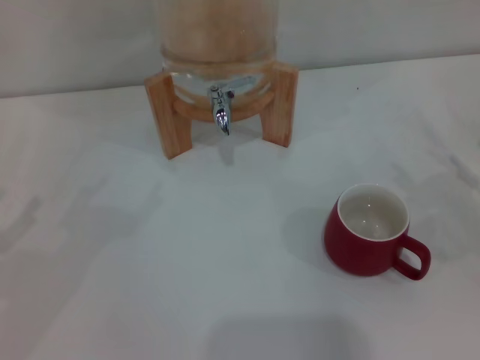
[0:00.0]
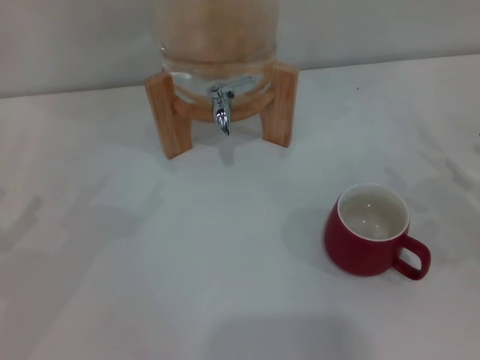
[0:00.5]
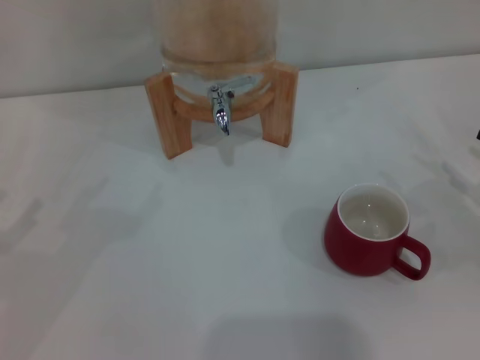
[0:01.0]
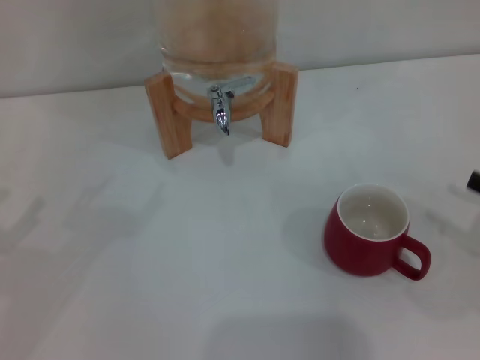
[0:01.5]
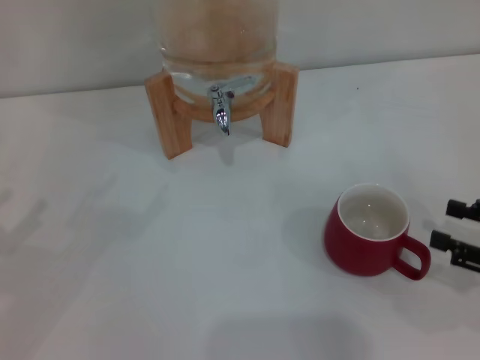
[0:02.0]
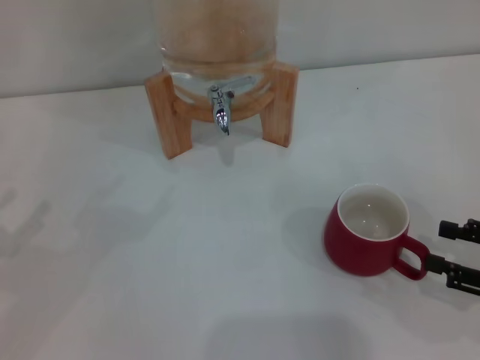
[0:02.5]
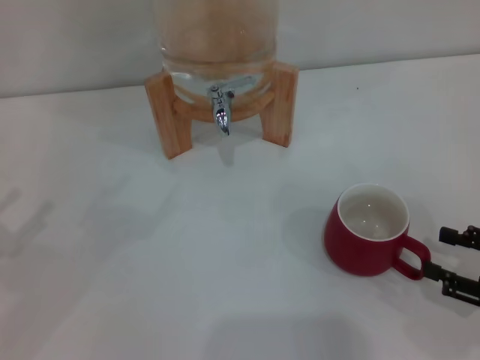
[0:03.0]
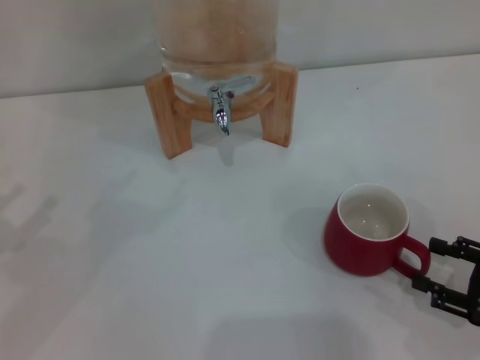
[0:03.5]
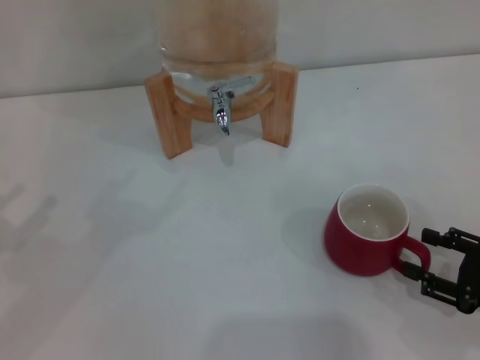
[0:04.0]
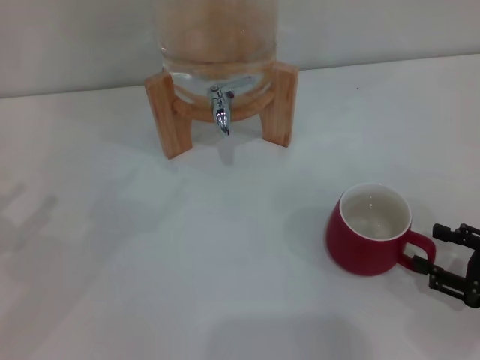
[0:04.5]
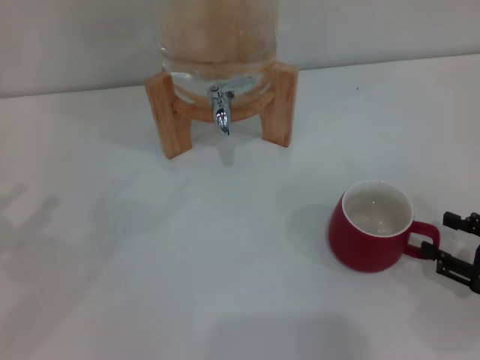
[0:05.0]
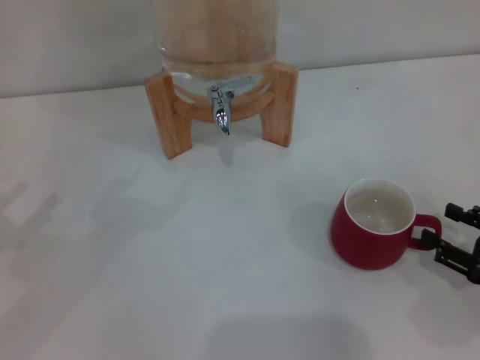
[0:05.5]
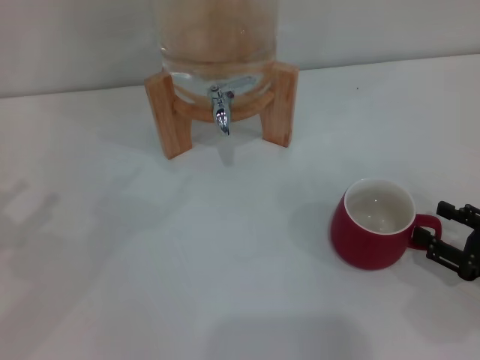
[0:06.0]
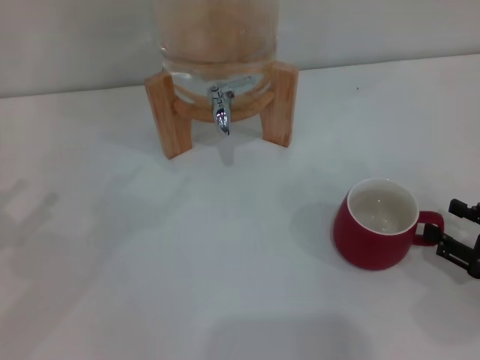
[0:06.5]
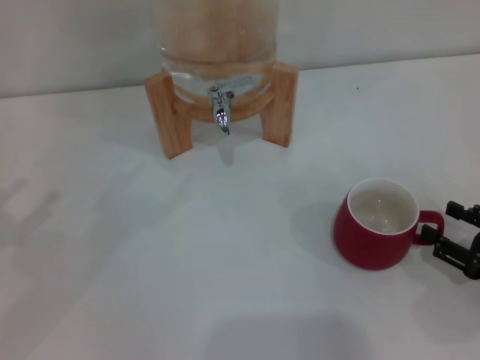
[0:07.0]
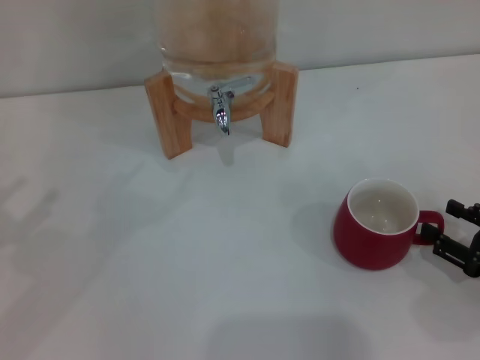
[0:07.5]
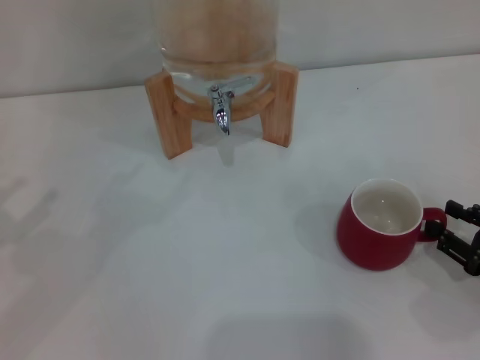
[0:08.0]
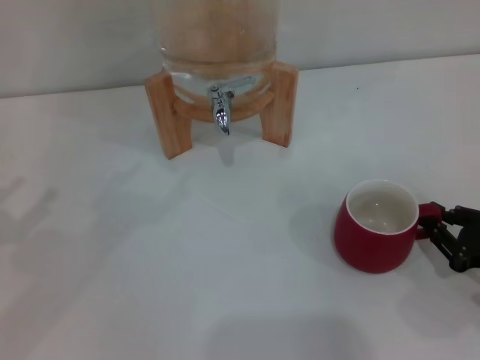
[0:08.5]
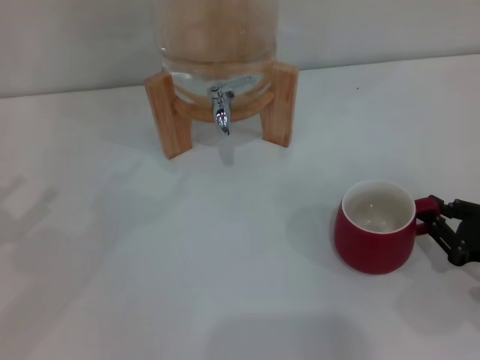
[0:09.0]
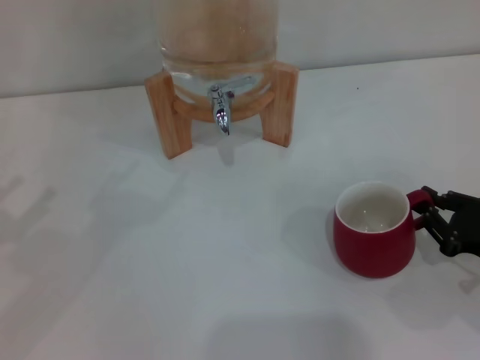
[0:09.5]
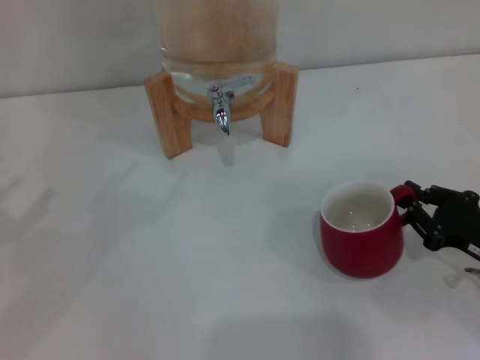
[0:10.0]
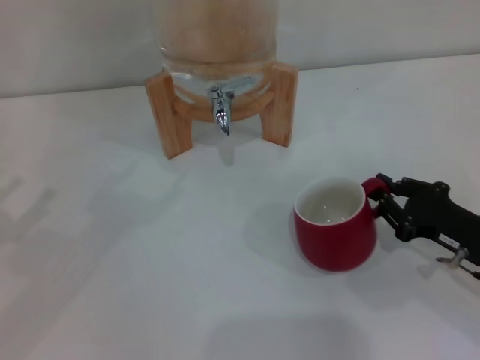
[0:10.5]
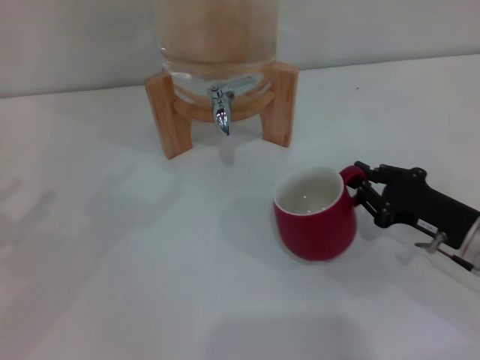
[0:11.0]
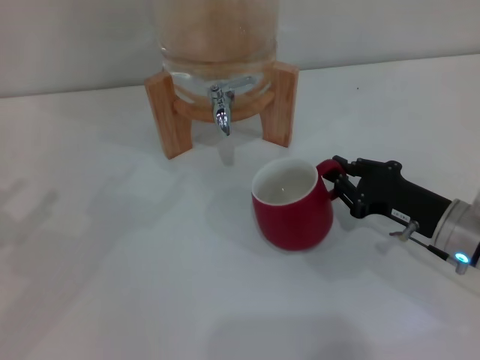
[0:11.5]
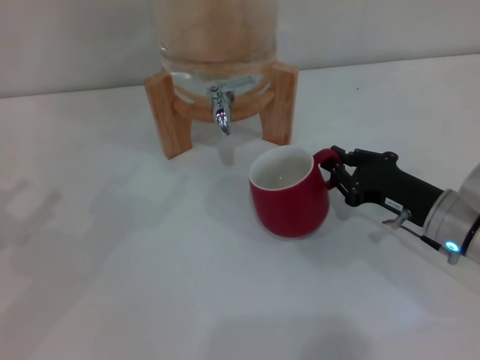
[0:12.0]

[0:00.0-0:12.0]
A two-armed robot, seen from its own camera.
Task of the whole recording: the right gripper pick up the red cup and place it horizontally under the faucet, the left gripper turn on the faucet to fill the cup, and then turn off the faucet.
0.0 to 2.0 s: The right gripper shifts approximately 5 cm backward.
2.0 to 6.0 s: The grippers stay close to where they were, moving slightly.
6.0 to 8.0 s: Both grippers stay put.
8.0 to 10.0 s: The right gripper closes up.
10.0 to 12.0 s: The right gripper travels forward and to the left by approximately 10 cm.

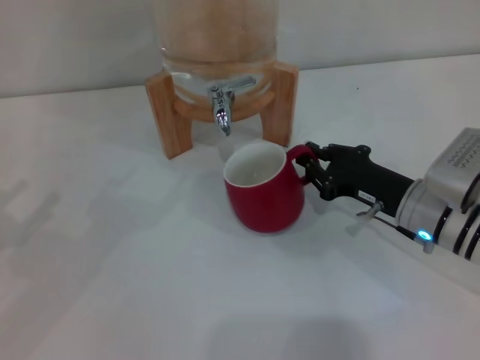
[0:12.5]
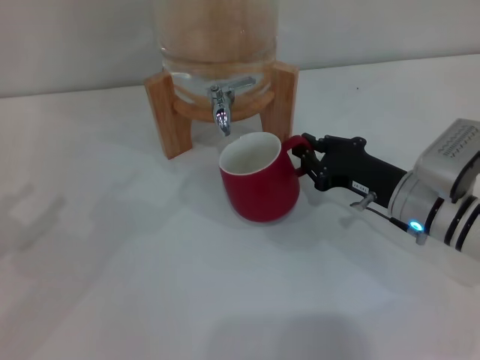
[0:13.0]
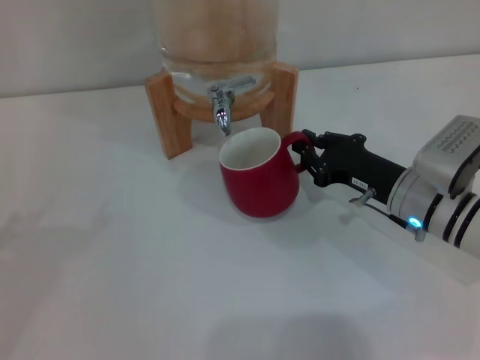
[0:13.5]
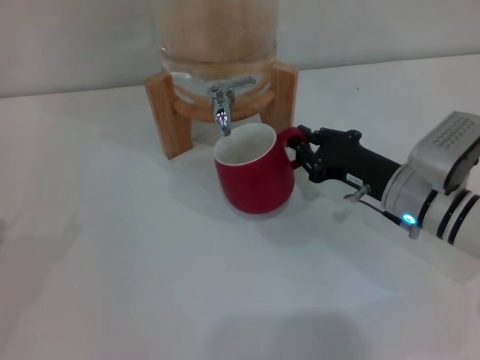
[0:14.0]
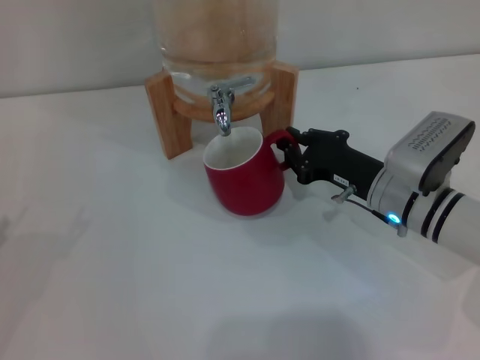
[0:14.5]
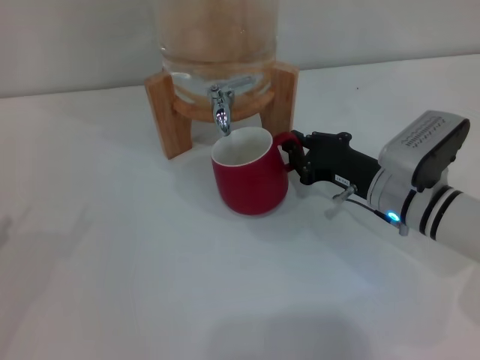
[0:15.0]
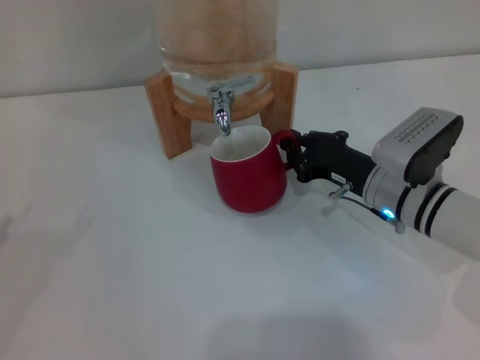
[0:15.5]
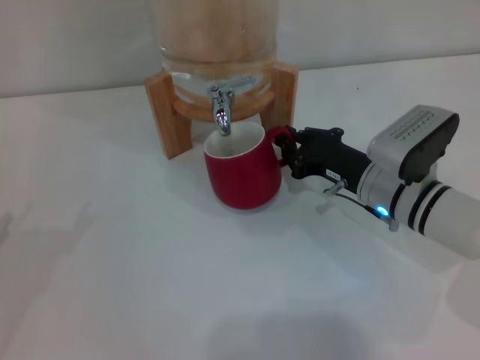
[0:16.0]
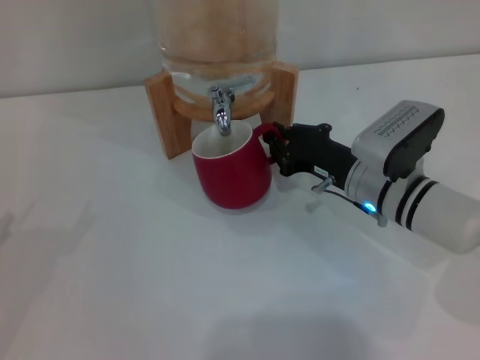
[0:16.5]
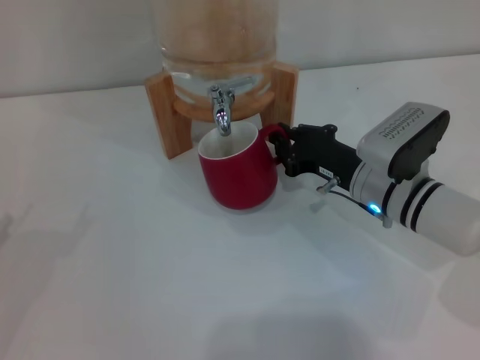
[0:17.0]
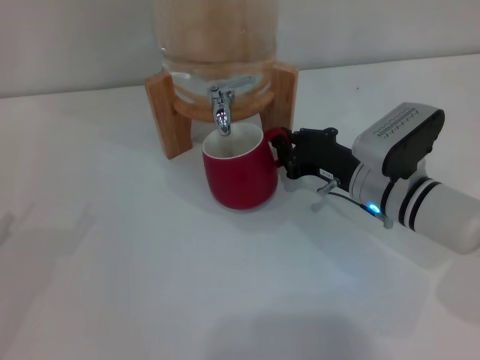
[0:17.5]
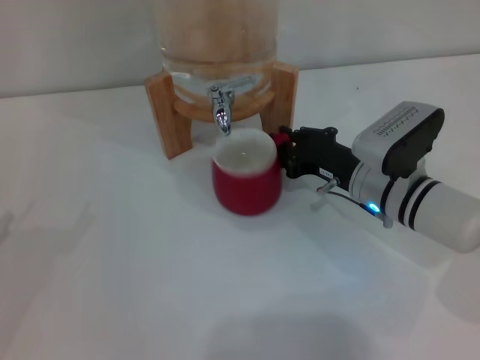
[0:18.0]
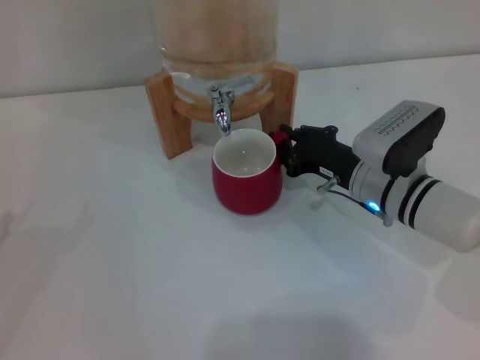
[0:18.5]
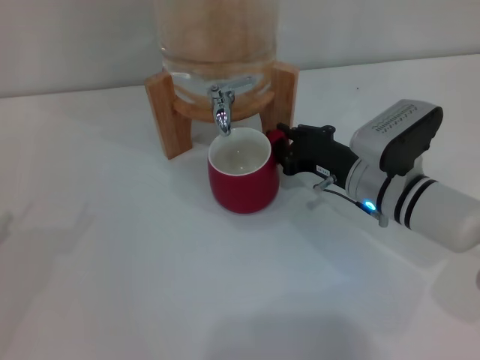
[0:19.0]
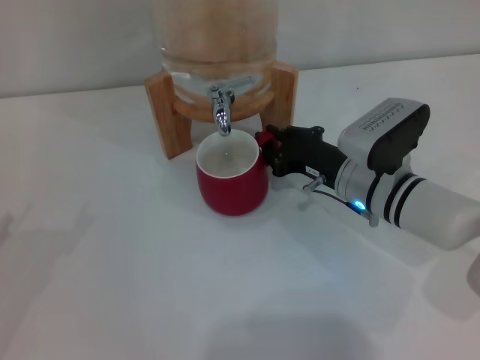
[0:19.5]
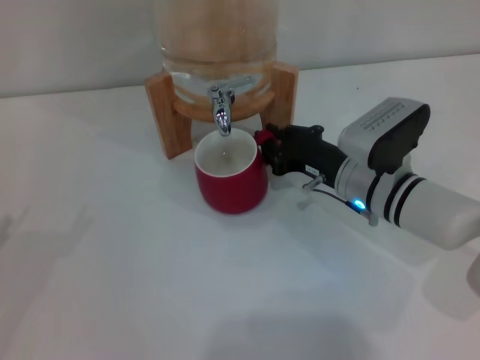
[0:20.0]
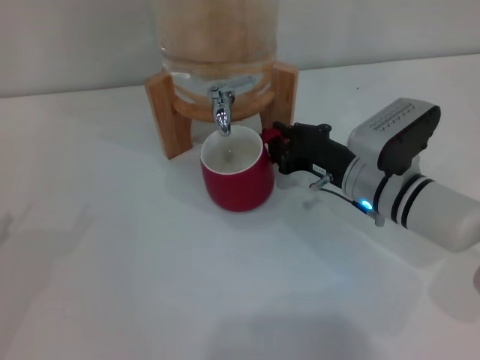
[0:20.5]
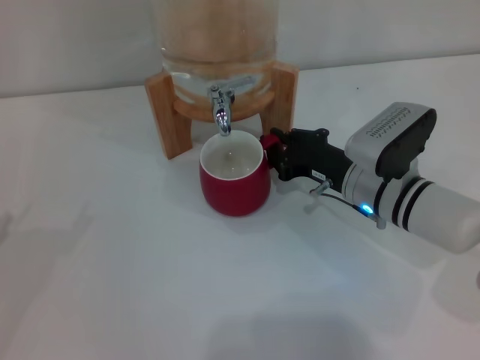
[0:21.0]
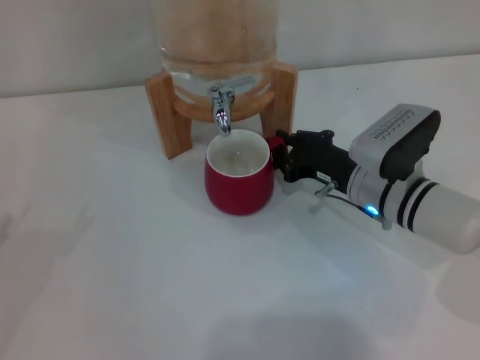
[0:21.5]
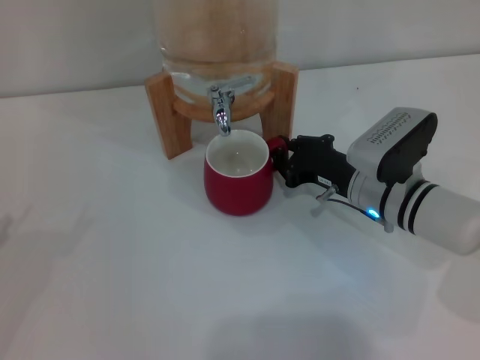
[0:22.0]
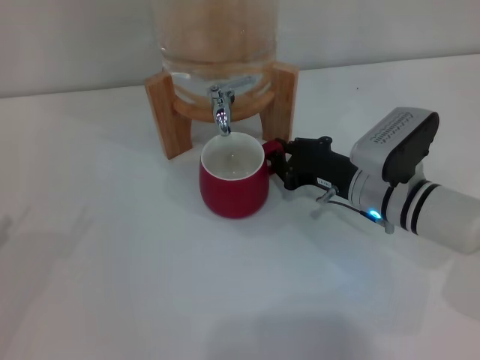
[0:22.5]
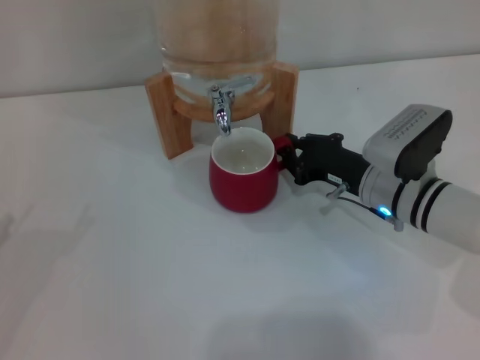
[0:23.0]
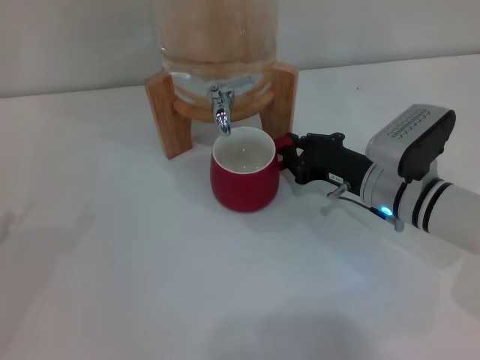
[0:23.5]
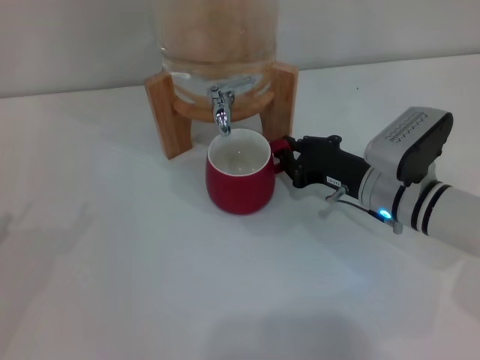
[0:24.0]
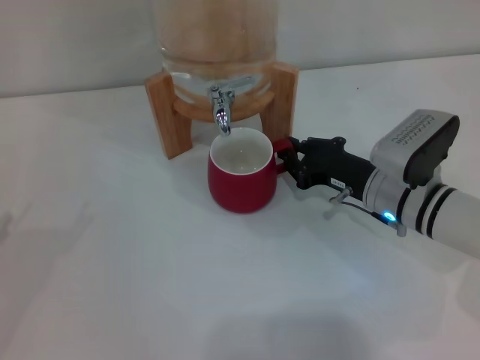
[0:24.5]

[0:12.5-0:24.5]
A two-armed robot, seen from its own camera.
Task of the whole recording: the right gripper pick up the red cup and place it horizontally under the faucet, the left gripper turn on the faucet to fill the cup, and then turn off the faucet.
12.5 to 14.5 s: The left gripper changes place by about 5 cm.
14.5 to 16.5 s: There are only small adjustments of the grippers.
16.5 to 18.5 s: The two grippers keep their place.
18.5 to 24.5 s: The grippers stay close to where they were, moving slightly.

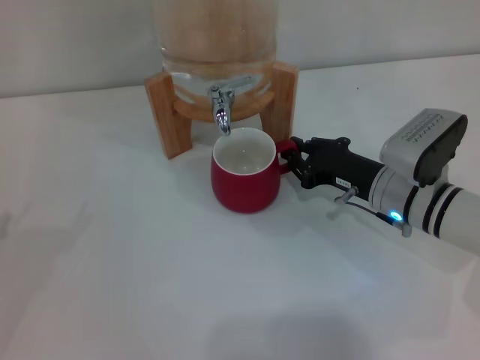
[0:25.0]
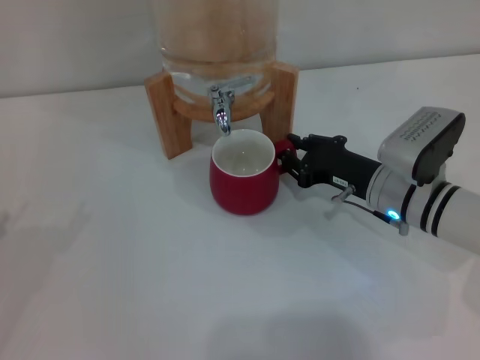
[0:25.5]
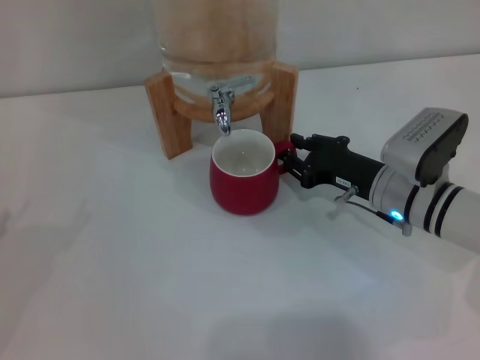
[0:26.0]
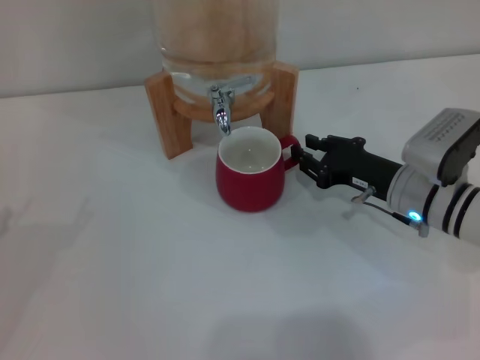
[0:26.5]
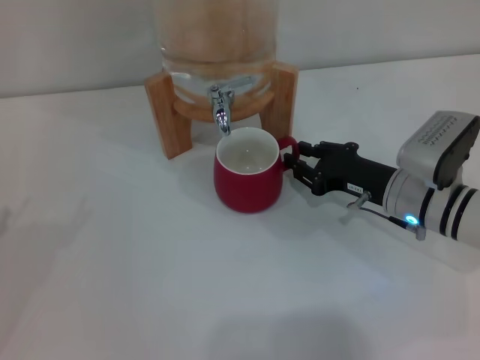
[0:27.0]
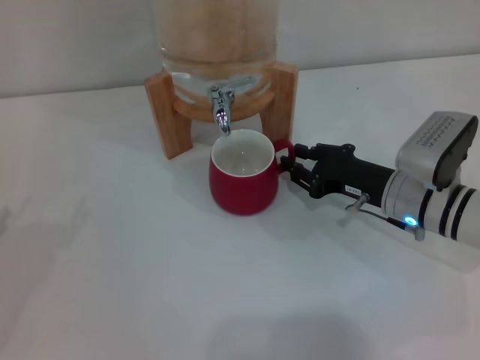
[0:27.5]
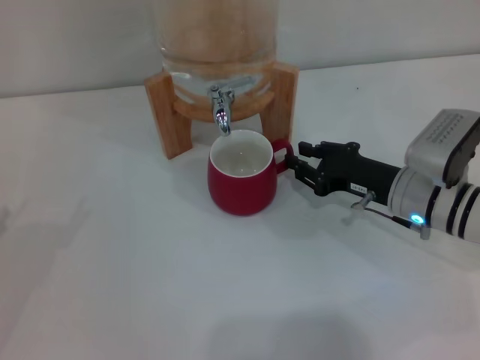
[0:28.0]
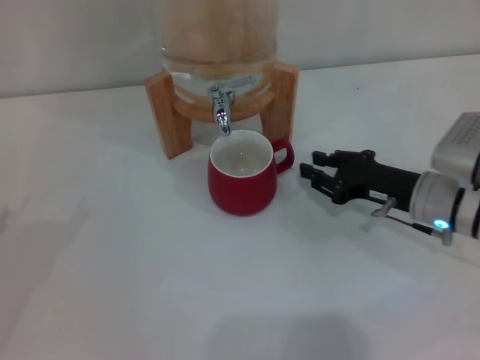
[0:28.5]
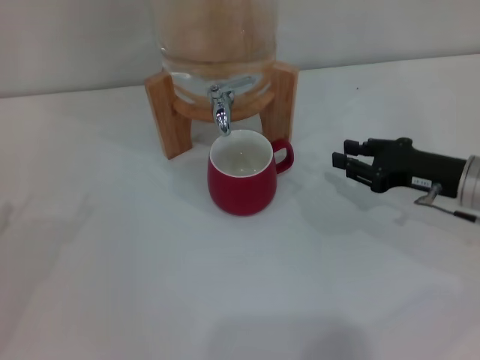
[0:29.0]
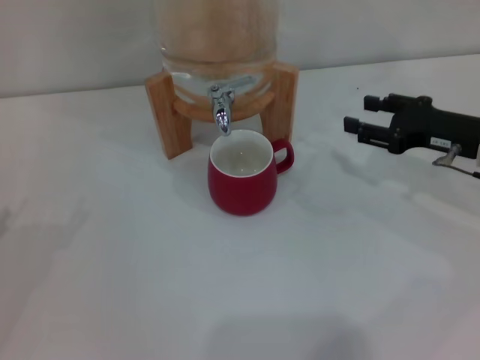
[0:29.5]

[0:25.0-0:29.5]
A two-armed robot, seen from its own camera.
Task of the whole recording: the right gripper pick up the red cup and place it horizontally under the faucet, the left gripper turn on the faucet to fill the cup, and then turn off the faucet.
Step, 25.0 to 28.0 s: Move the cup beneath the water dispenser nozzle with the right gripper.
25.0 to 27.0 s: There are only small adjustments of the grippers.
27.0 to 29.5 s: The right gripper shifts approximately 10 cm to the right and upward, and opens.
